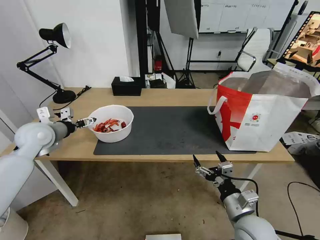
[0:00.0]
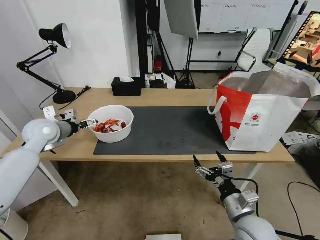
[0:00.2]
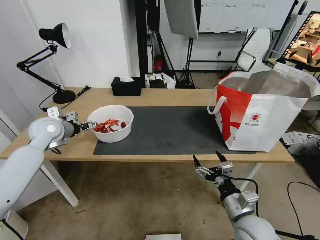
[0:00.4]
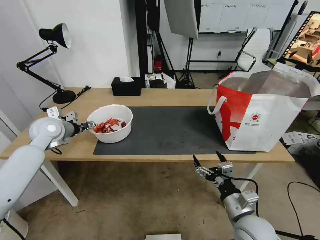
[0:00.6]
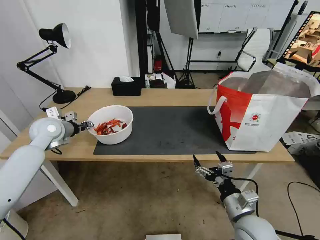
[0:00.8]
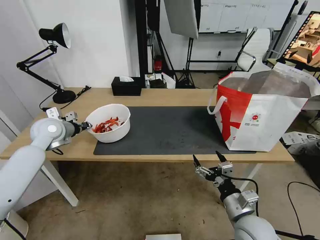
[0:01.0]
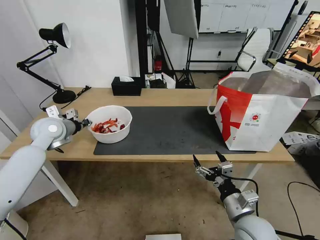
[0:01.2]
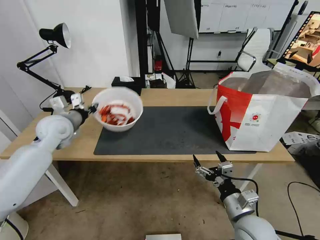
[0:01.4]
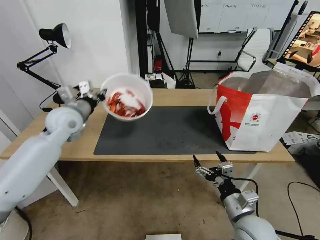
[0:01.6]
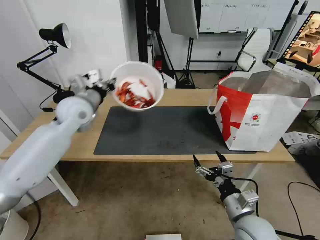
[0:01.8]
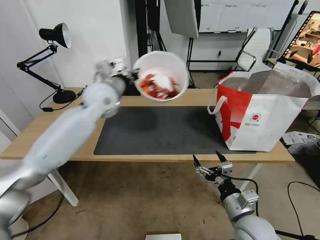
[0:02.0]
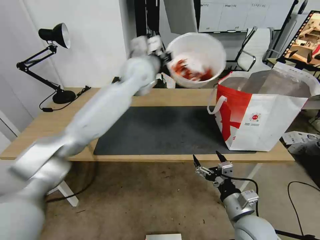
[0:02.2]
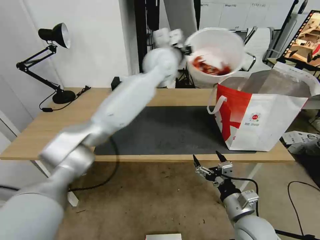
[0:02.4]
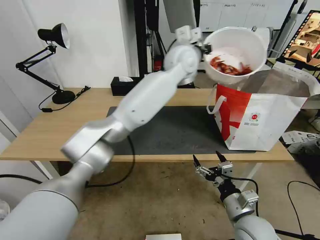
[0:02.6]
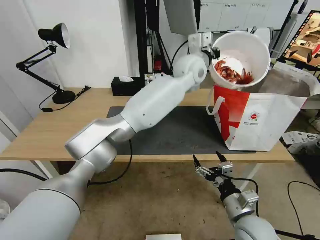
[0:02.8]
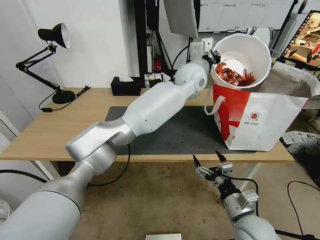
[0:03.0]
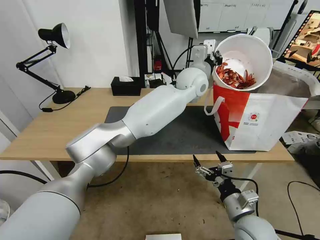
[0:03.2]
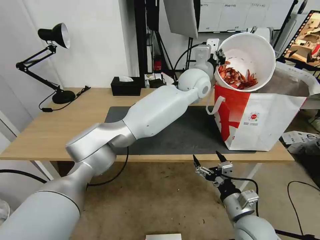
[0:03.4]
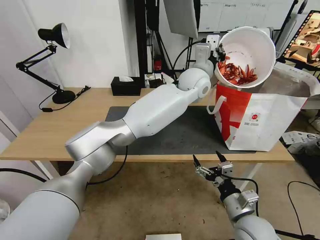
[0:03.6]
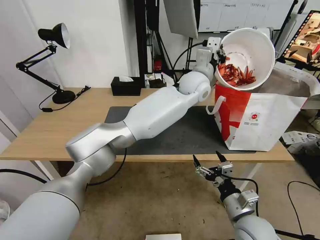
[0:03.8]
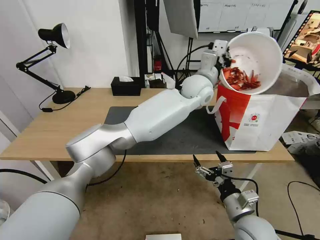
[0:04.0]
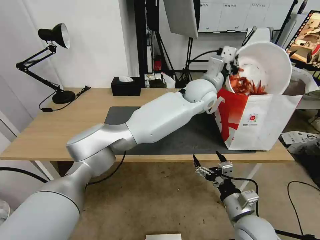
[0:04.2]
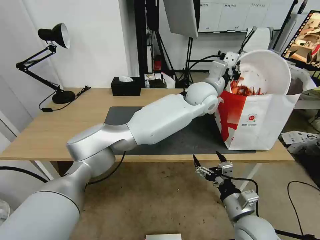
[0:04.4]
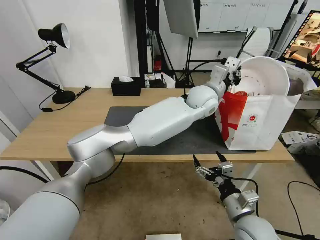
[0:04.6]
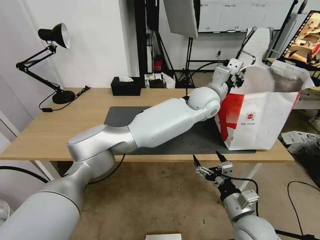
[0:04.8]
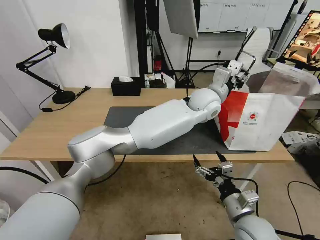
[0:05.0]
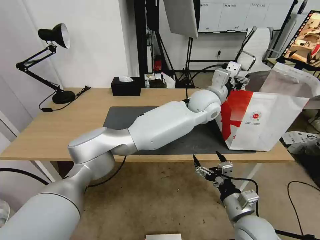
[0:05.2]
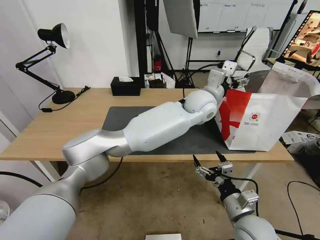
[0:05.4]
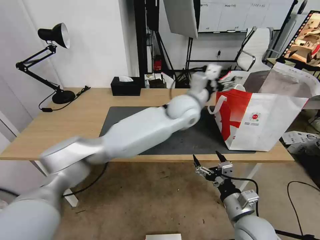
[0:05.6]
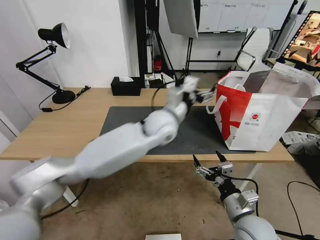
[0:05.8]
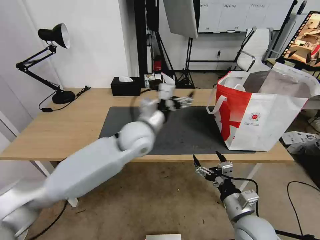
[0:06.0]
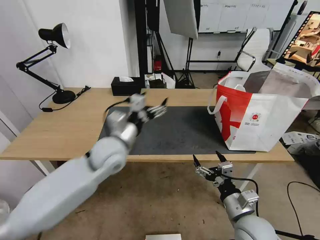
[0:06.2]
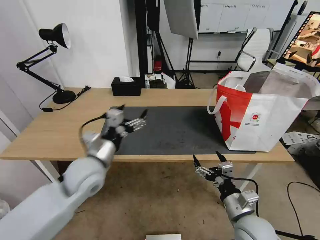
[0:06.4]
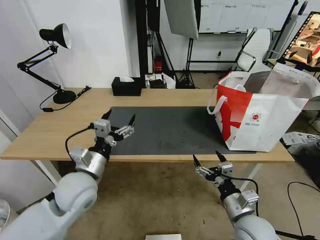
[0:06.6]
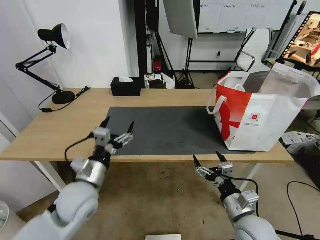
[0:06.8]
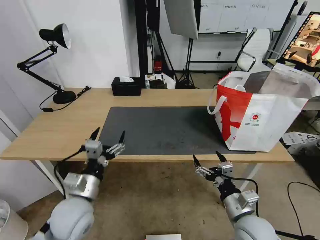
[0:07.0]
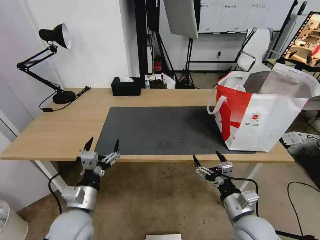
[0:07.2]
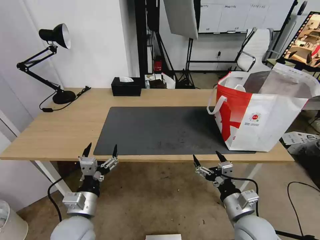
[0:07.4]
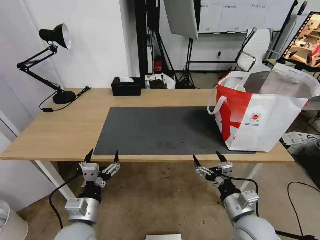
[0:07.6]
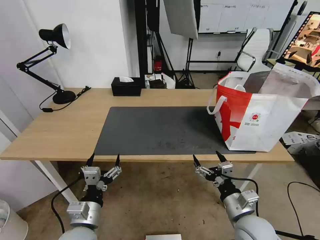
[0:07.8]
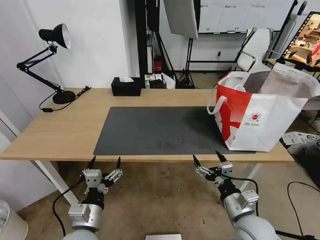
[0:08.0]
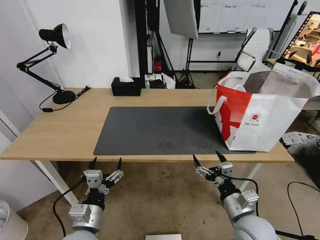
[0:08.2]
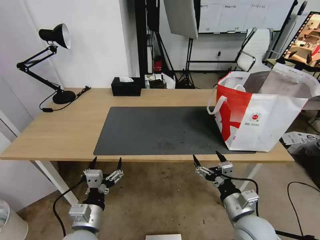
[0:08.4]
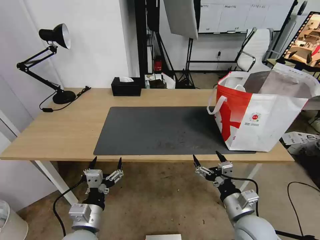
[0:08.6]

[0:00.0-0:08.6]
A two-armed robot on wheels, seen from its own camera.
Task of the whole recording: Pick up the trash from the table and place it into the takeout bag.
0:00.0 to 0:01.4: The left gripper is displaced to the right by some 5 cm, and closes.
0:01.4 to 0:02.8: The left gripper shifts about 40 cm to the right.
0:02.8 to 0:04.4: The left gripper travels downward by about 5 cm.
0:04.4 to 0:05.8: The left gripper is displaced to the left and backward by roughly 15 cm, and opens its fingers.
0:05.8 to 0:07.2: The left gripper moves to the left, backward and downward, some 35 cm.
0:07.2 to 0:08.6: The left gripper travels backward by some 5 cm.
